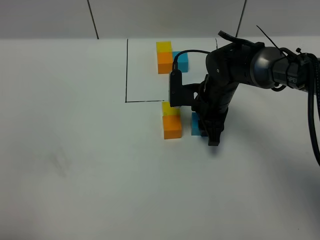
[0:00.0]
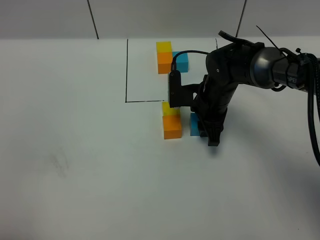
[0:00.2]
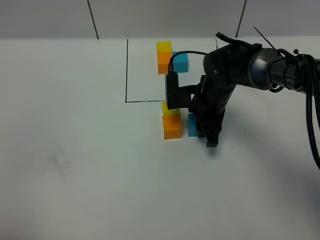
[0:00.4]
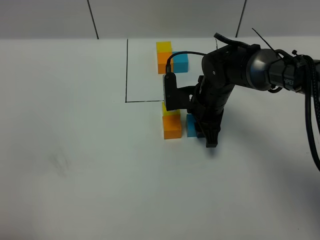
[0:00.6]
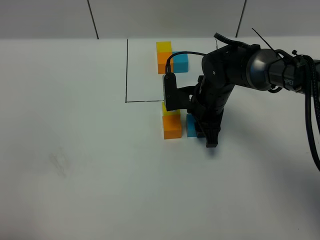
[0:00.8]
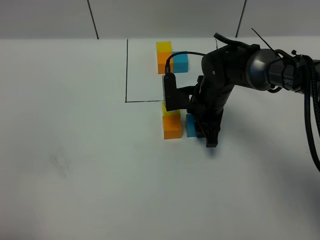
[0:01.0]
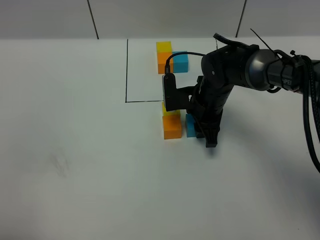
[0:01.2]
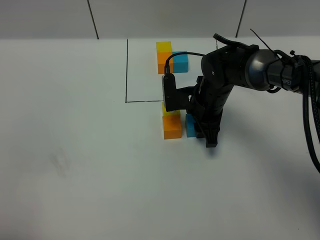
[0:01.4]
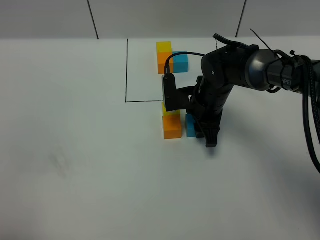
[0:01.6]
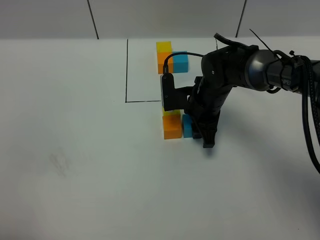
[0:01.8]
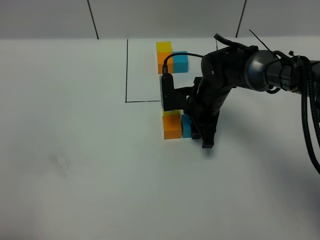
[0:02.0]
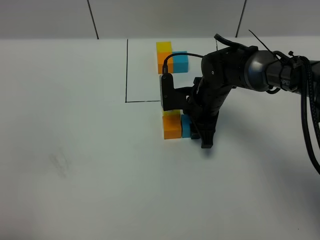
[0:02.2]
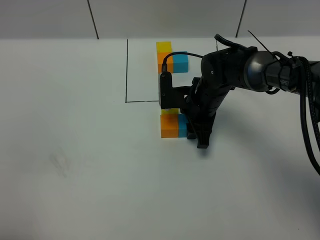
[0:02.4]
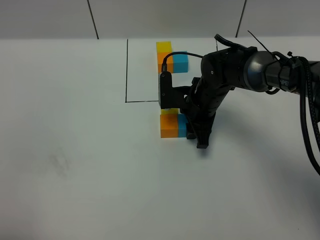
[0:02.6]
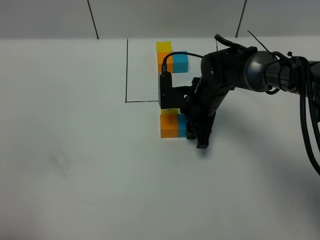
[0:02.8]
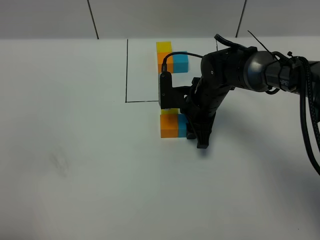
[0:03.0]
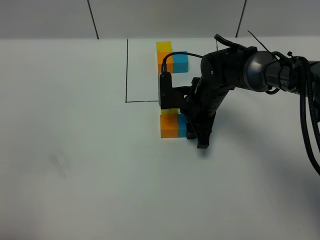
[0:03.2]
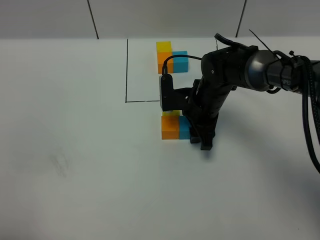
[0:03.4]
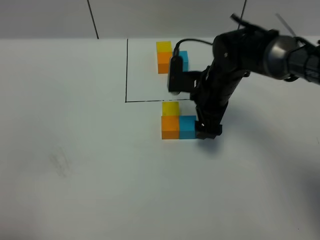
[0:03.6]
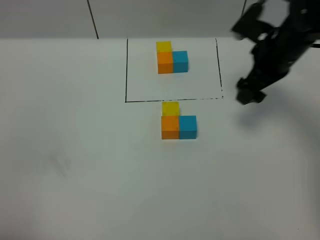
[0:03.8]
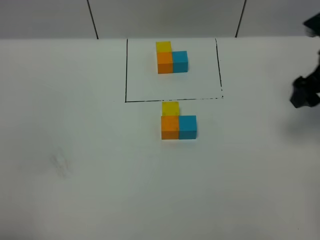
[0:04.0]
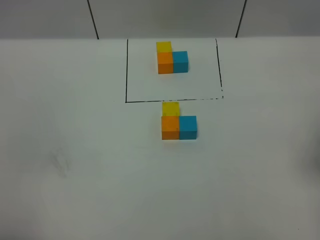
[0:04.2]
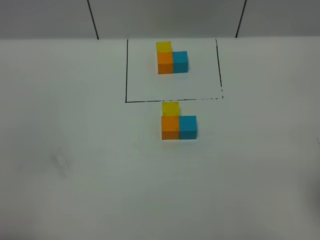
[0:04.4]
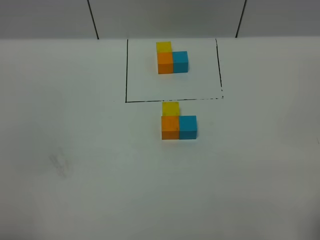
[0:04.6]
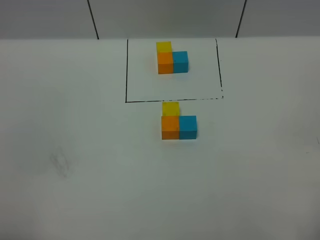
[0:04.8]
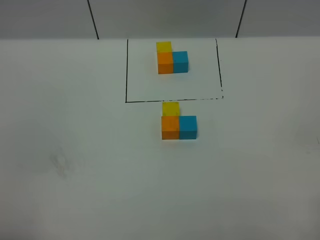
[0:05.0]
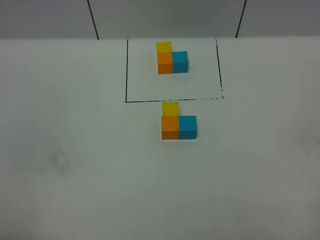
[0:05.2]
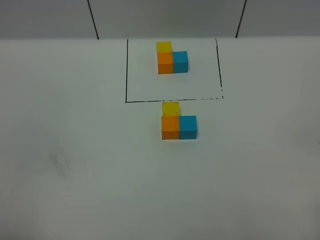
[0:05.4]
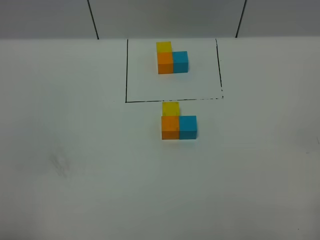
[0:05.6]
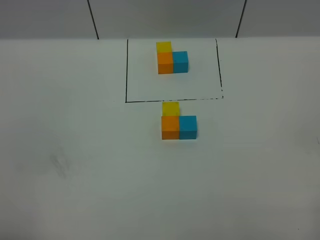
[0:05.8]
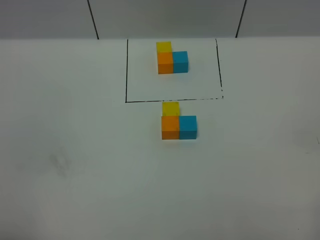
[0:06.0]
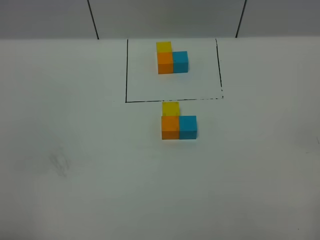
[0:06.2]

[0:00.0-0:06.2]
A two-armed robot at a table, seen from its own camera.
Task of the whole recording: According to the building block template in front, assemble the scattered blocks together.
Step, 0:00.0 to 0:03.4: Put the blue build block on the right of the orange build block.
0:00.0 to 0:03.2: The grippers stay close to where they were, moving slightly.
0:03.2 to 0:04.6: The right gripper is displaced backward, to the right and upward by some 40 cm, and opens its fingers.

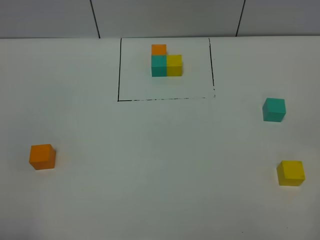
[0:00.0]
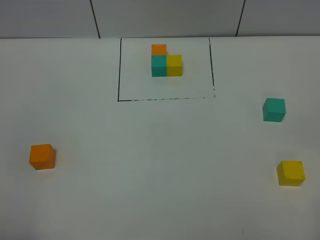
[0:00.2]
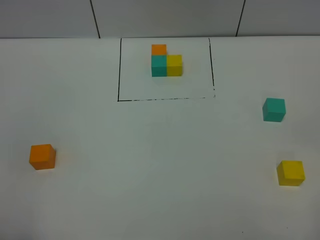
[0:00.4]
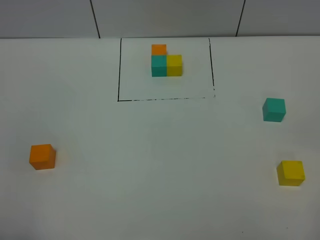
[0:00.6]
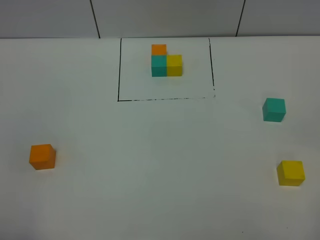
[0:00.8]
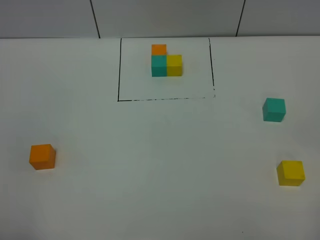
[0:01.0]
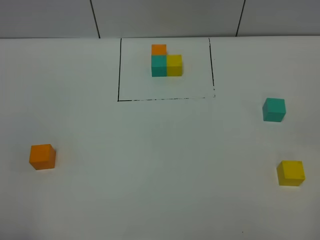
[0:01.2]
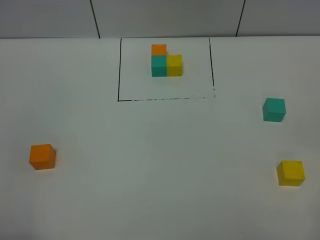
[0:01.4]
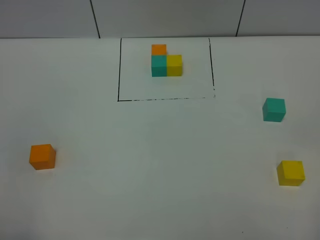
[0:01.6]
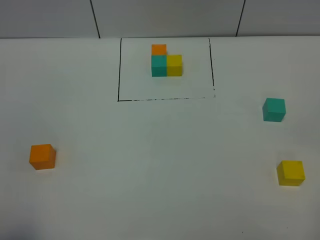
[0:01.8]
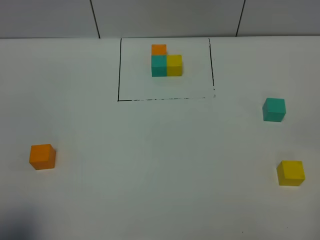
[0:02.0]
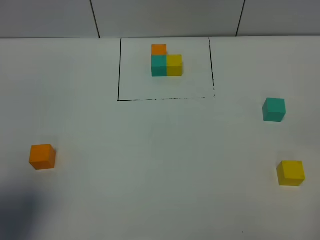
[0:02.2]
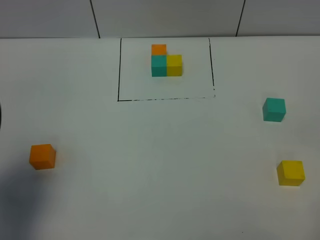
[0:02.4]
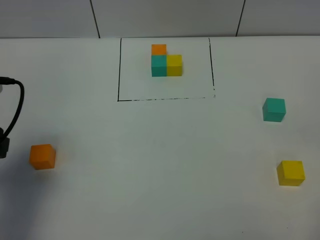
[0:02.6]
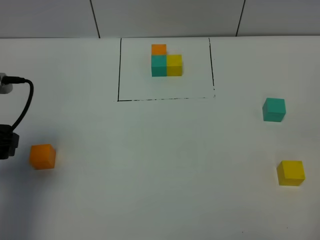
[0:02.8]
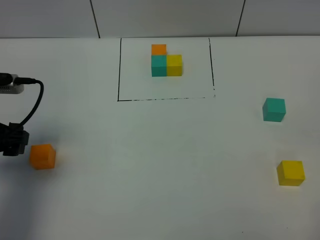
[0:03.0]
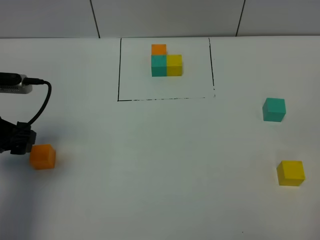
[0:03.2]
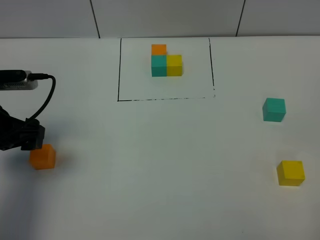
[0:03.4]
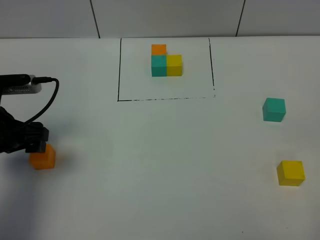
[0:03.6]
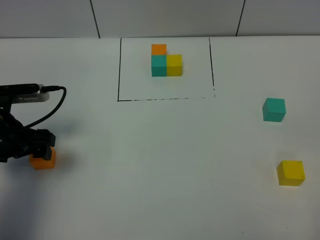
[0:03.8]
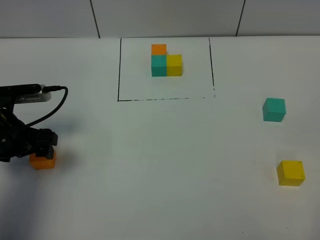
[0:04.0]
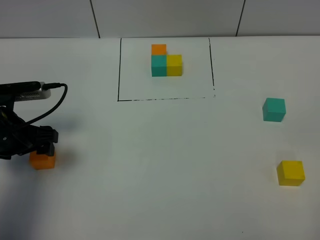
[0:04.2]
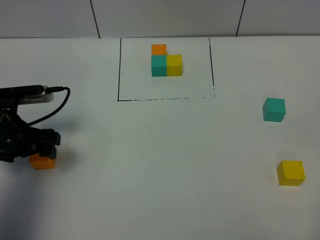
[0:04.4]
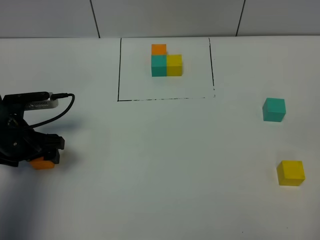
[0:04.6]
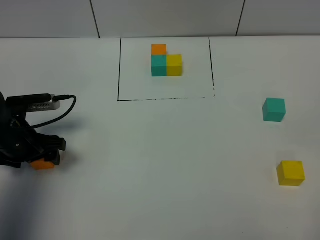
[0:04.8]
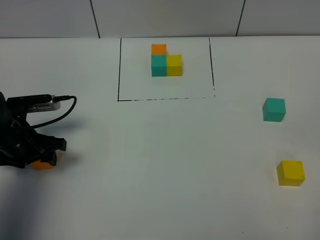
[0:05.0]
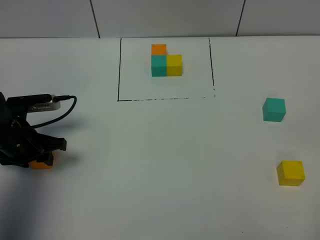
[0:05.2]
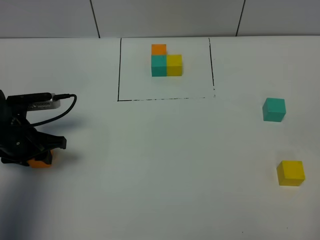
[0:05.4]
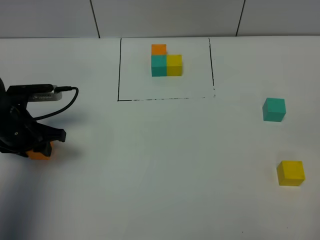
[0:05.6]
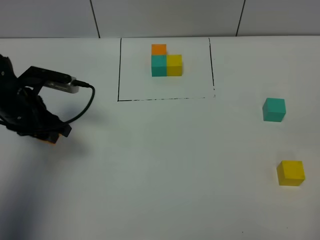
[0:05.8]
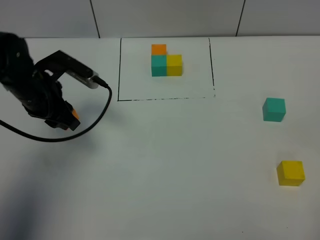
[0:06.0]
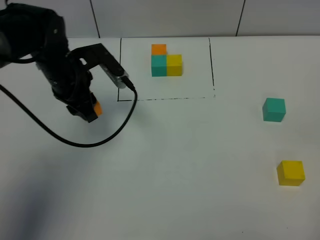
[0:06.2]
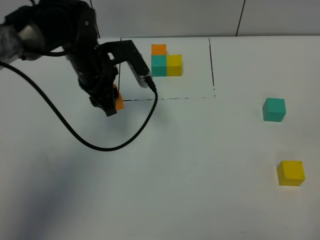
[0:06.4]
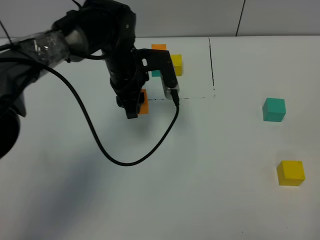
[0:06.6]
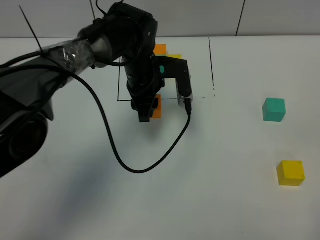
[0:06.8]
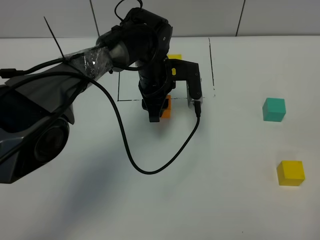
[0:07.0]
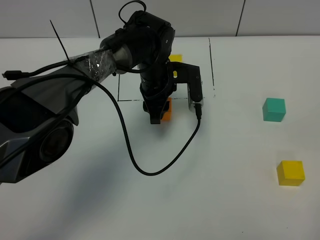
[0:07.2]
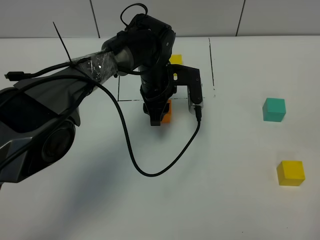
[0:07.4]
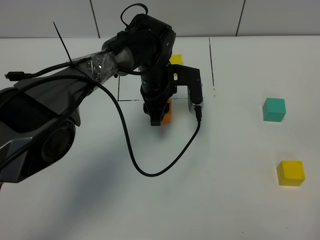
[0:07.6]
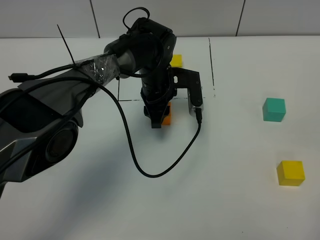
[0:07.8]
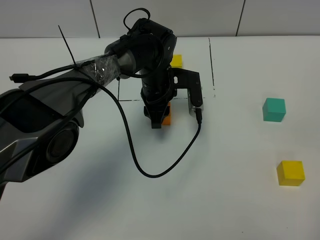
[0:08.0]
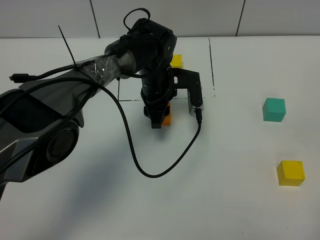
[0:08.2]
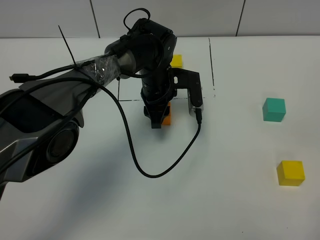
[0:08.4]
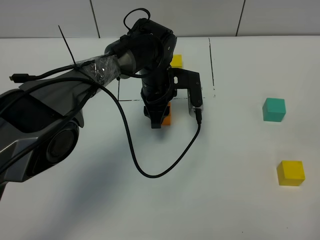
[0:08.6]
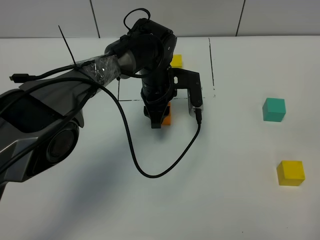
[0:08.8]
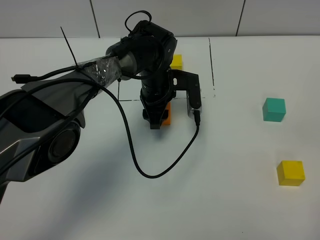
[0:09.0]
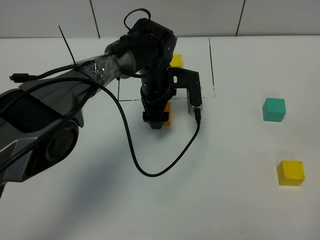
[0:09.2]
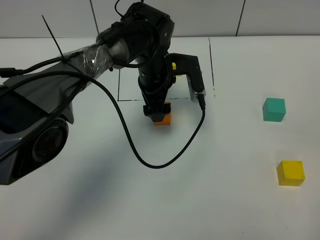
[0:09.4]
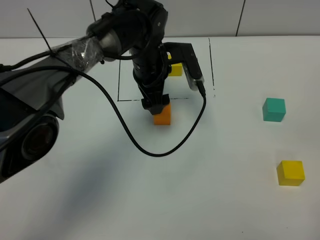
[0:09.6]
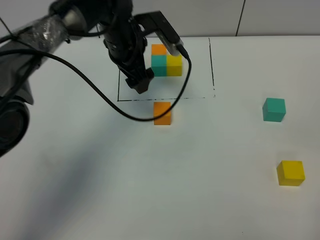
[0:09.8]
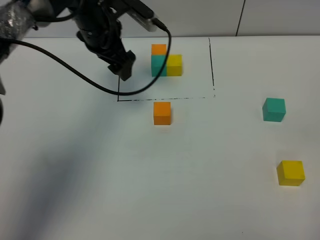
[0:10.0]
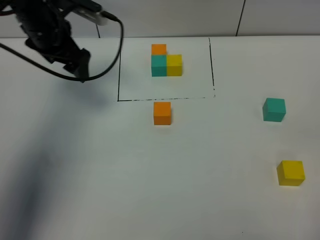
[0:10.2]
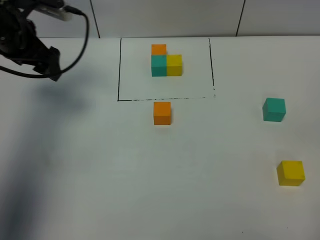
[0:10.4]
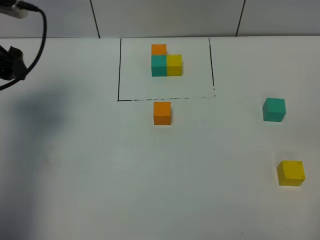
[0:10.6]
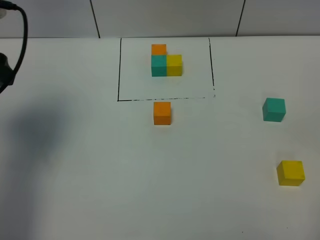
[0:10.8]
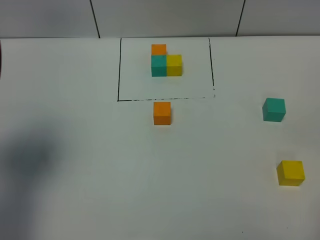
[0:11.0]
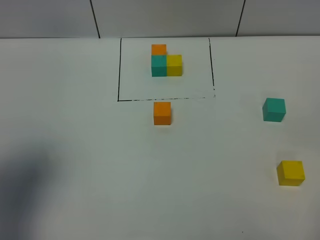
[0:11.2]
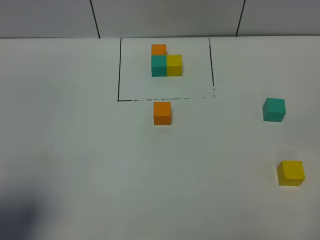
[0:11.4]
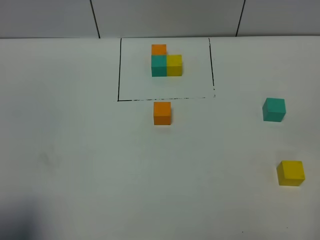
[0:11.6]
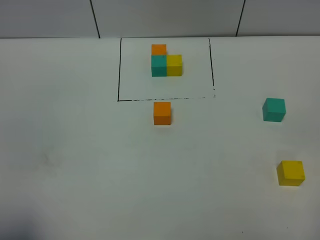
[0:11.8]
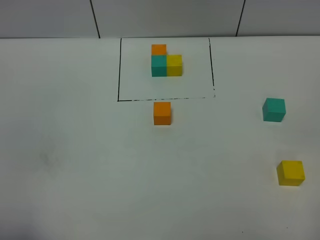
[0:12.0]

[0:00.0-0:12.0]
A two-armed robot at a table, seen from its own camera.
Task of the whole recording: According to the building block template in front, assemble the scattered blocks together.
Step, 0:00.0 to 0:08.8: Put the orange build block in the center of the table.
0:00.0 to 0:01.6: Neither gripper changes place.
0:01.6 to 0:03.0: The left gripper heads forward, covering roughly 25 cm.
0:03.0 to 0:04.4: The left gripper heads downward, covering roughly 5 cm.
0:04.4 to 0:06.0: The left gripper travels forward and to the right by approximately 10 cm, and closes up.
0:06.0 to 0:07.6: The left gripper moves to the right, some 20 cm.
0:07.6 to 0:09.0: The left gripper opens.
0:09.0 to 0:10.4: The left gripper heads to the left and upward, covering about 30 cm, and opens up.
0:10.4 to 0:12.0: The left gripper shifts approximately 40 cm backward.

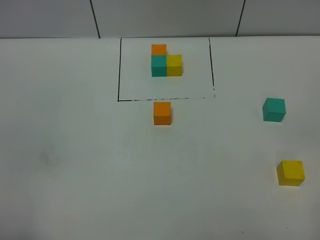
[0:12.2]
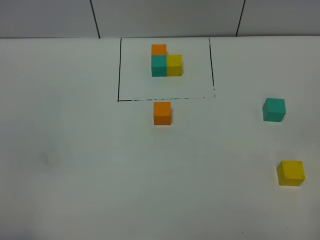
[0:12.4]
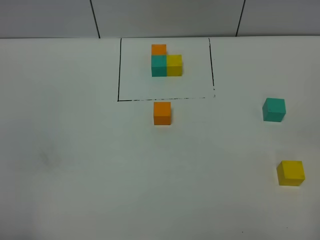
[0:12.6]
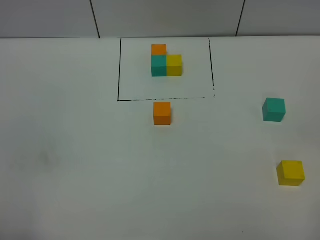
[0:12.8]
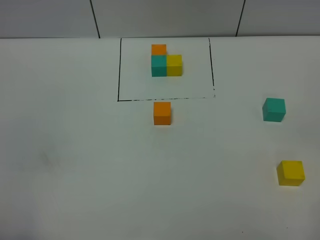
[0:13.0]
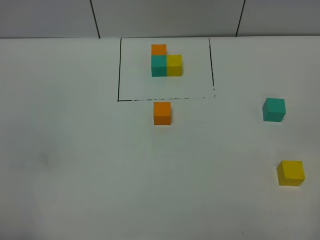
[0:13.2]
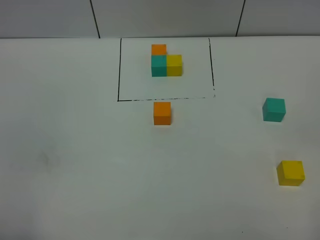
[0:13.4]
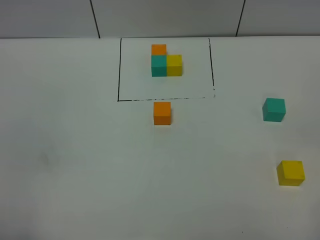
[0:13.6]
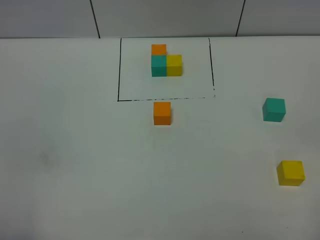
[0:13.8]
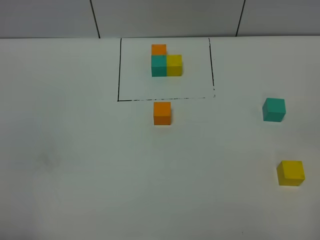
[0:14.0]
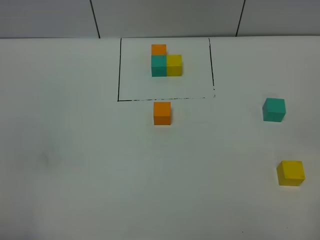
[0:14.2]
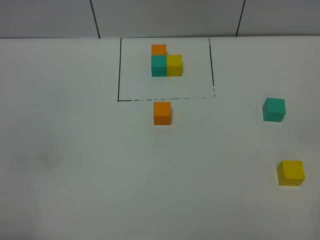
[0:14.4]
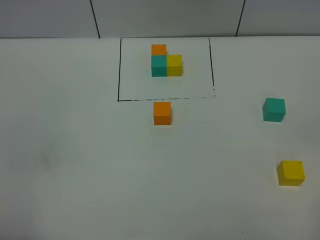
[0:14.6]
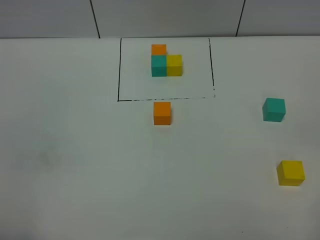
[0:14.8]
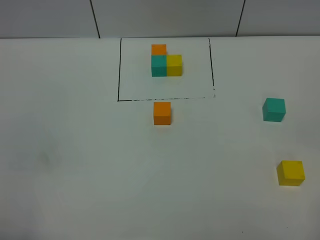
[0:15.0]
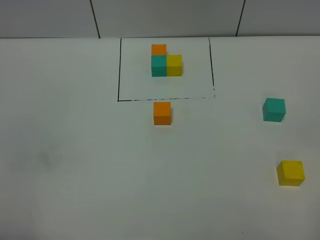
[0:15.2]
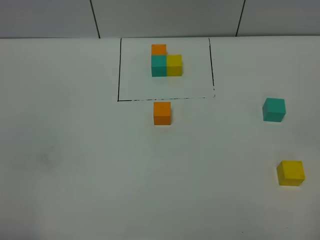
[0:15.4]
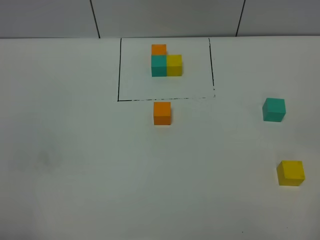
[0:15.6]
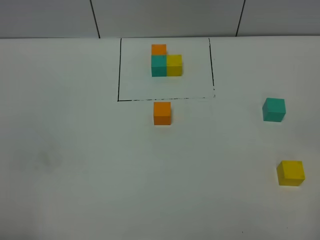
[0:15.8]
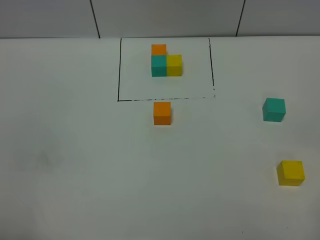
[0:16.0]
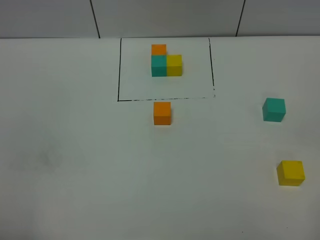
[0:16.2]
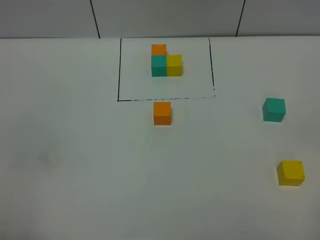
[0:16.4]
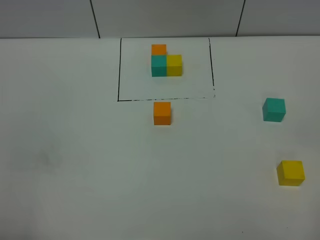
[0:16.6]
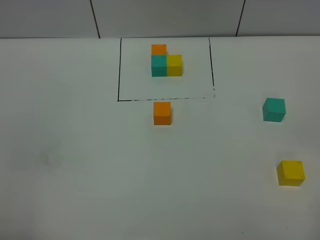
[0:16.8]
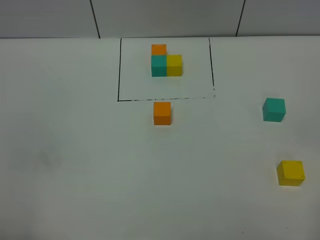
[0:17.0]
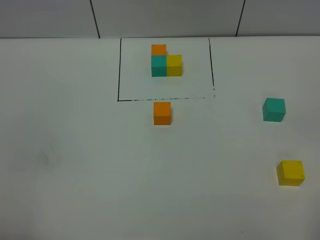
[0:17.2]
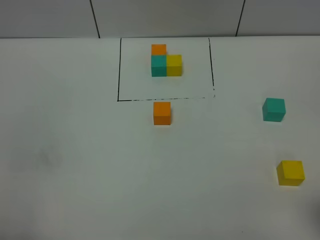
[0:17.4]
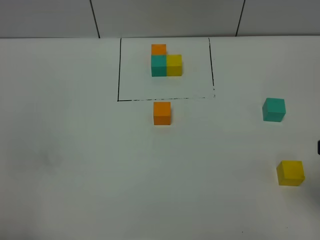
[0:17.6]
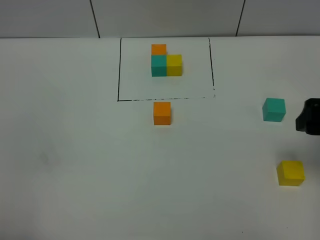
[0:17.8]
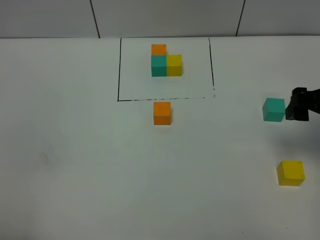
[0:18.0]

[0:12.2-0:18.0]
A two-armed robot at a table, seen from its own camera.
Task of the whole recording: According to the building block template in front, assemble the scattered blocks together.
0:12.2 to 0:16.6: Both grippers stay put.
0:16.6 to 0:18.0: The right gripper heads forward, covering about 25 cm.
